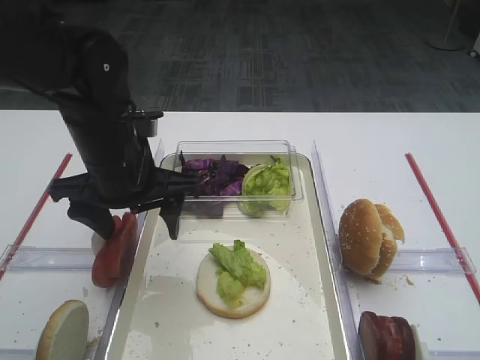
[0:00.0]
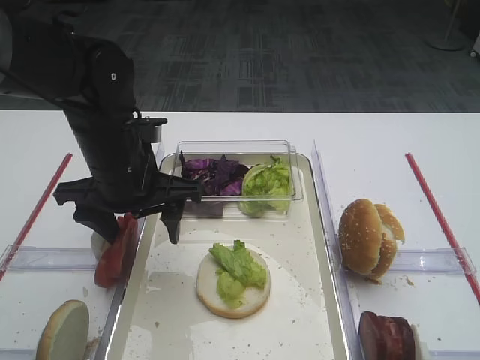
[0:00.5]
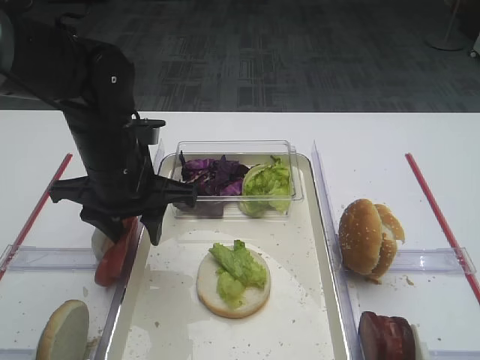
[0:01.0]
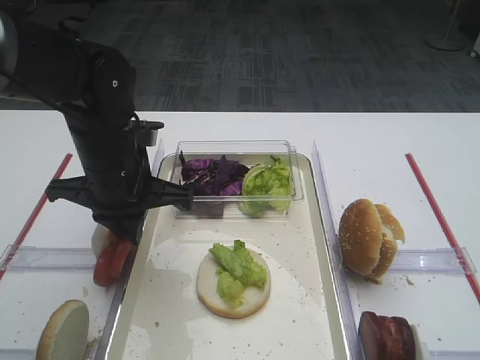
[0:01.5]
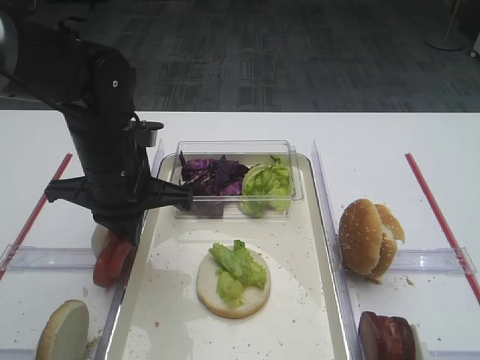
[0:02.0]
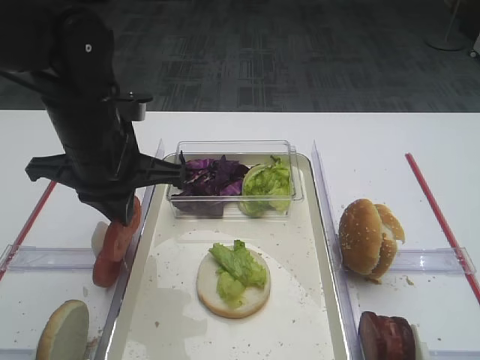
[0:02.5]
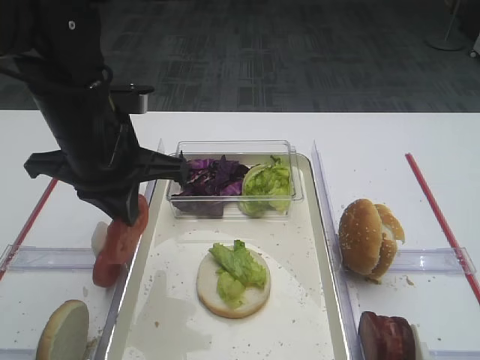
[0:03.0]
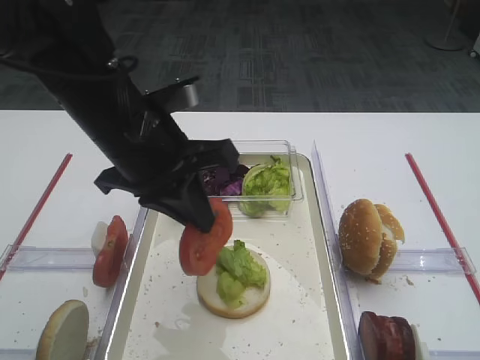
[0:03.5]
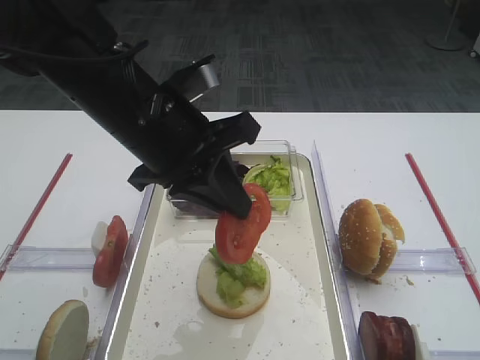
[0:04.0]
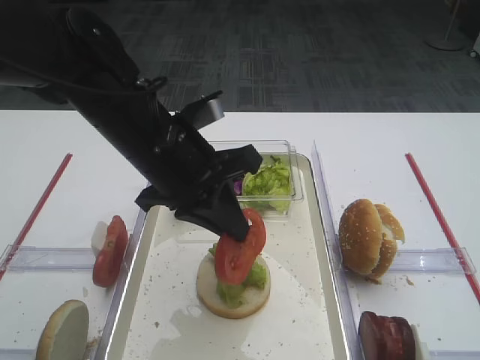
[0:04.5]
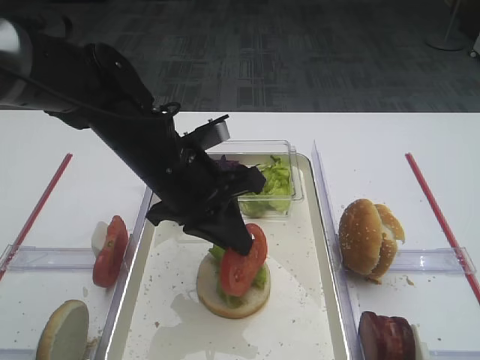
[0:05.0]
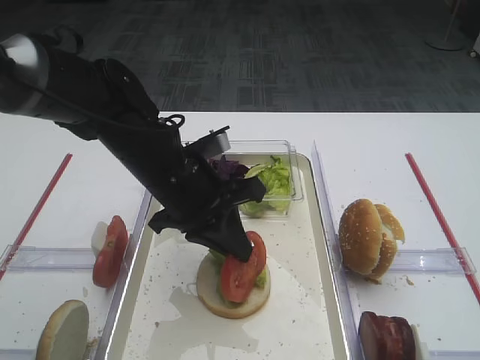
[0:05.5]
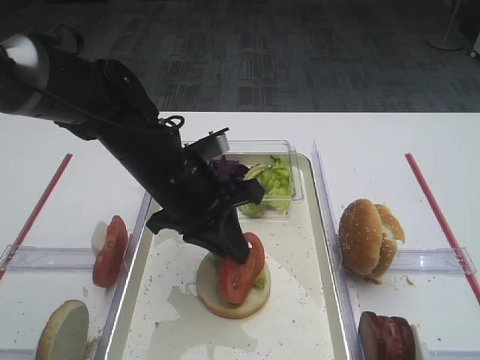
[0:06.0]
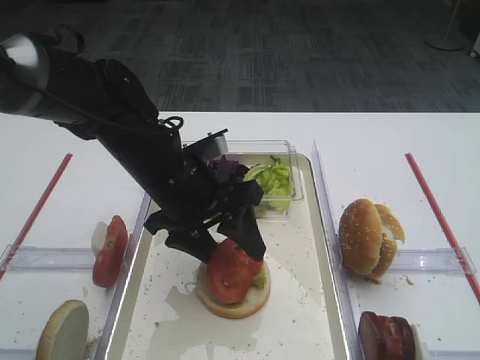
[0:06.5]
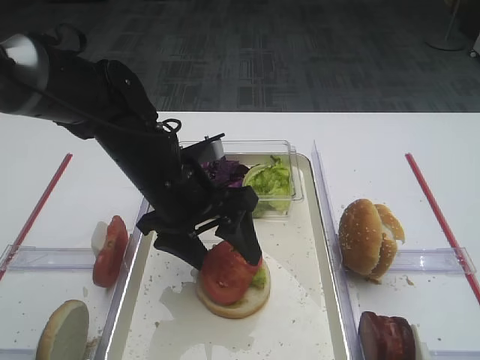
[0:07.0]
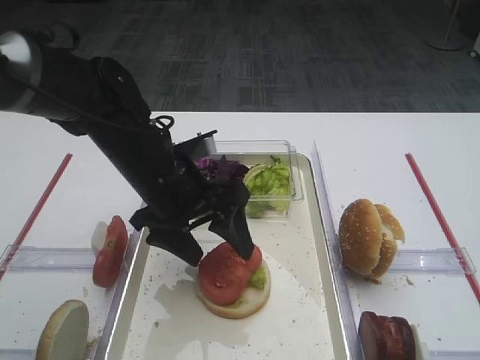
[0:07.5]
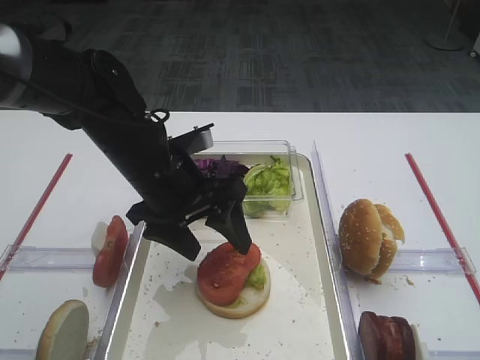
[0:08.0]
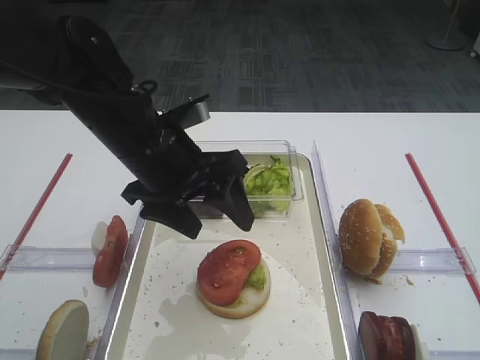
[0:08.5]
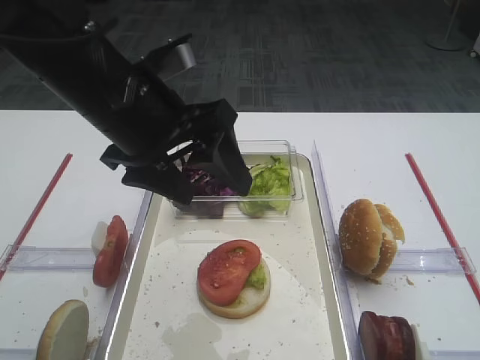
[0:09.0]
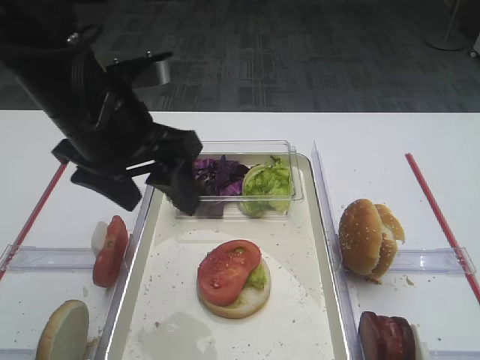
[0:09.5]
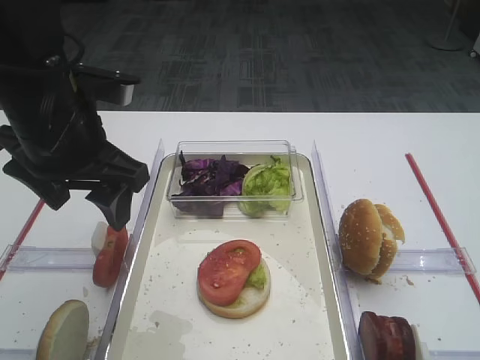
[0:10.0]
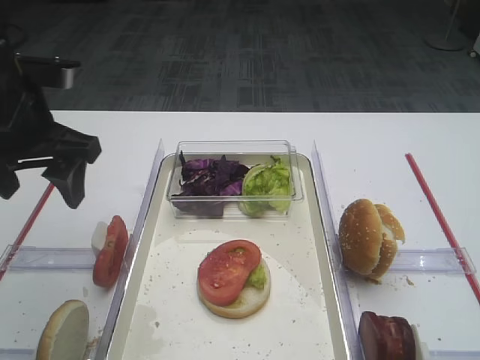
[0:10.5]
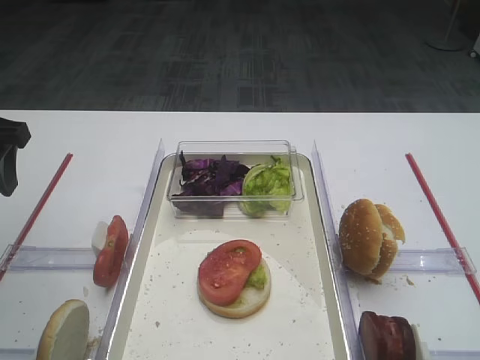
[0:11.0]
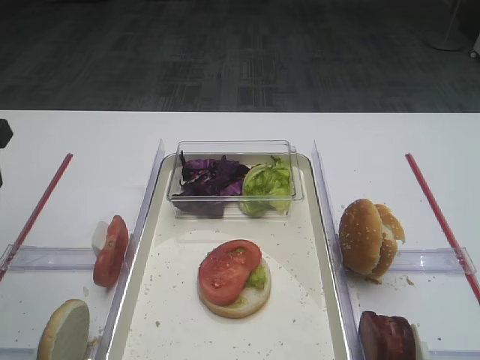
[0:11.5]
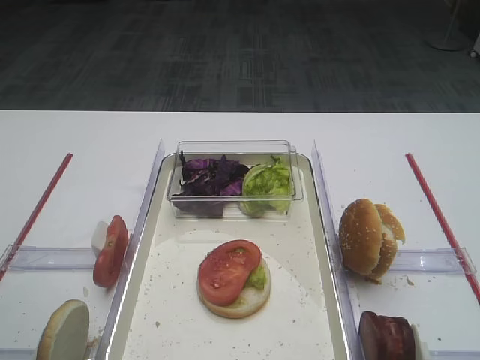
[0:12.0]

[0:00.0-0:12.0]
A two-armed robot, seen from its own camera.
Step, 0:00.0 to 0:02.5: Pick up the tomato slice with the left gripper.
Step, 0:03.0 to 0:08.0: Place the tomato slice on the lettuce leaf with the left gripper.
0:00.0 to 0:02.0: The left gripper closes its fingers.
0:02.0 to 0:04.0: The left gripper moves upward, roughly 10 cm.
0:04.0 to 0:06.0: The left gripper heads downward, covering about 10 cm.
0:06.0 to 0:08.0: The left gripper opens its fingers.
0:08.0 to 0:10.0: The left gripper travels upward and to the left by some 10 cm.
0:10.0 to 0:12.0: The left gripper goes approximately 15 cm to the left and backward.

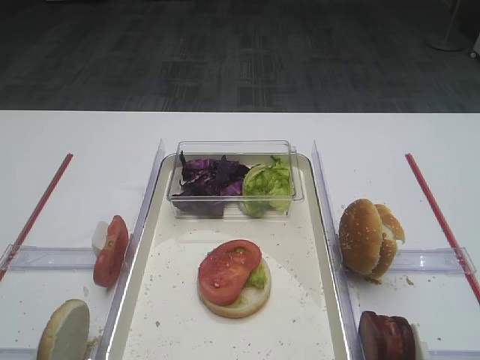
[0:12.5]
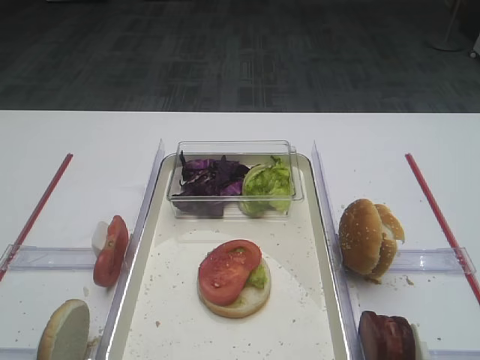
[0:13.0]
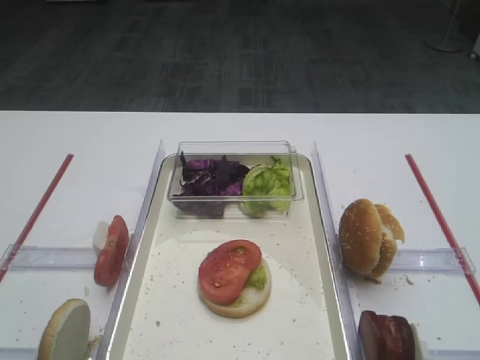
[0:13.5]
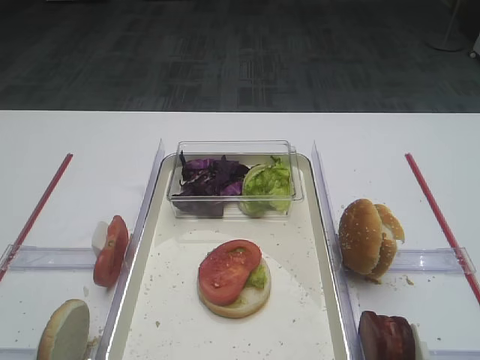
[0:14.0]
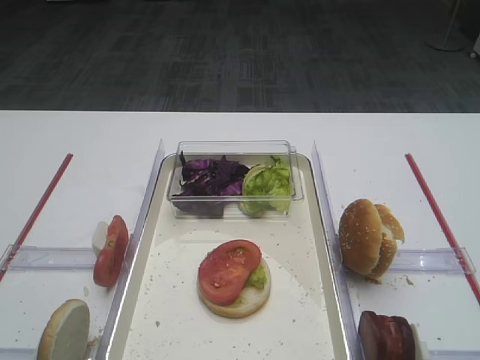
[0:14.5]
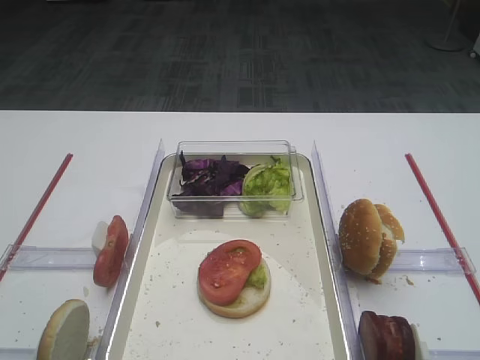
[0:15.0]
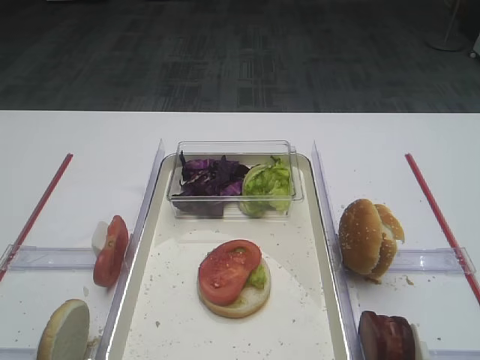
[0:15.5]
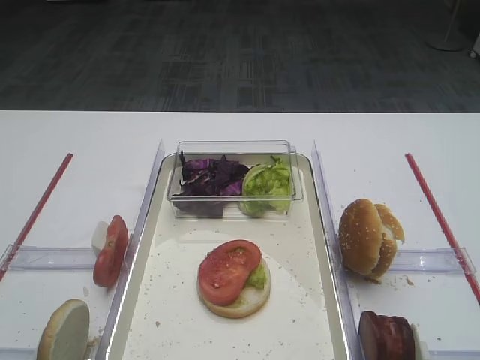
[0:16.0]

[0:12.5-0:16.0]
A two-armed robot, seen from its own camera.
0:14.5 to 0:16.0: Both grippers stay about where they are.

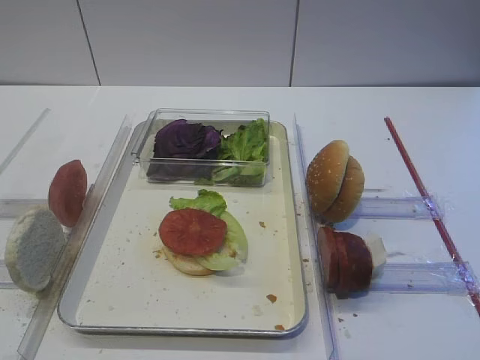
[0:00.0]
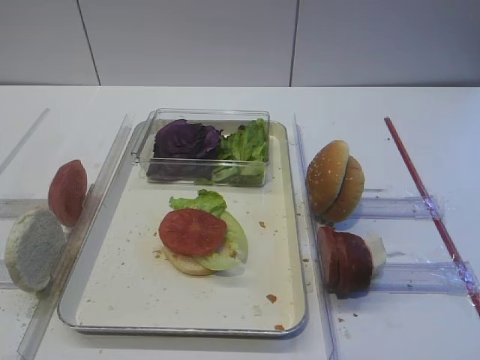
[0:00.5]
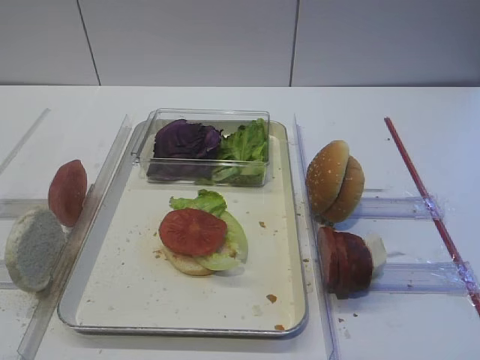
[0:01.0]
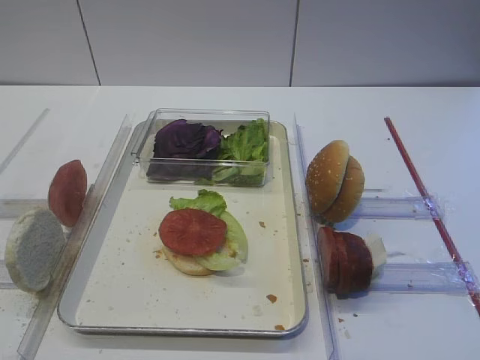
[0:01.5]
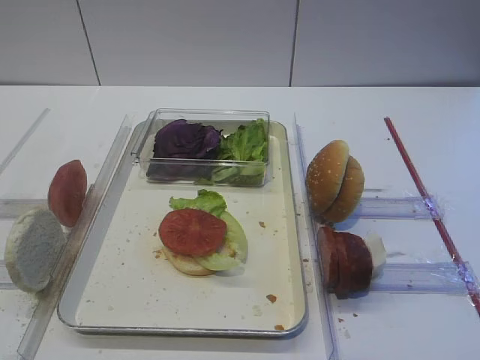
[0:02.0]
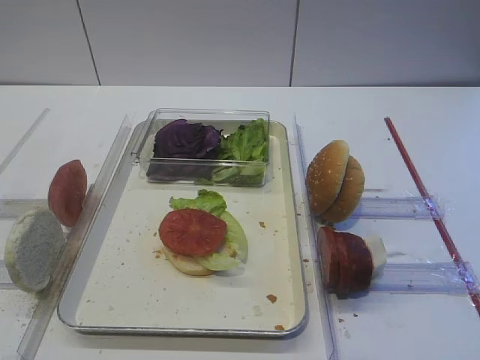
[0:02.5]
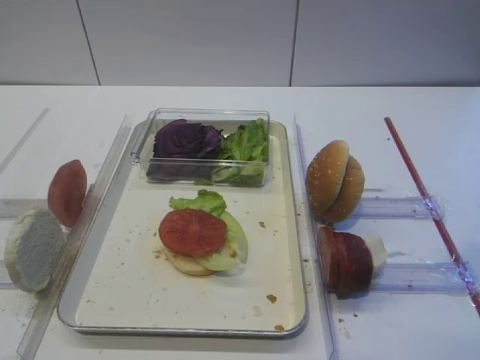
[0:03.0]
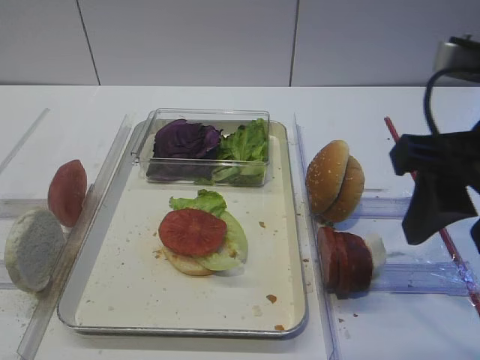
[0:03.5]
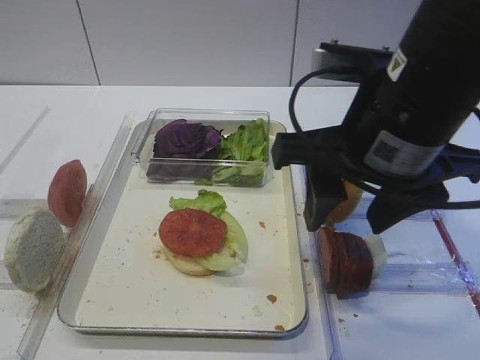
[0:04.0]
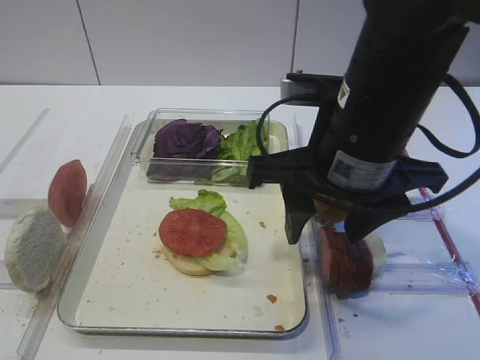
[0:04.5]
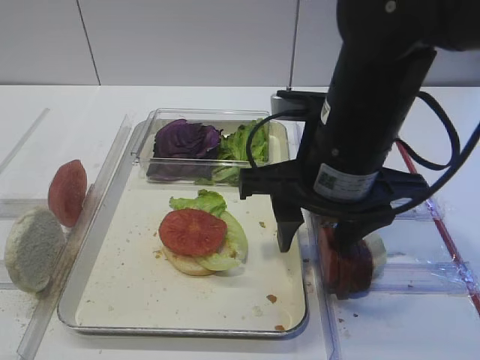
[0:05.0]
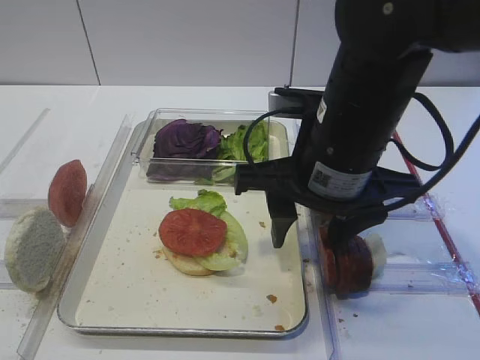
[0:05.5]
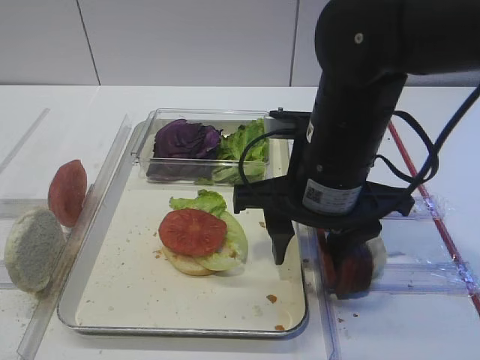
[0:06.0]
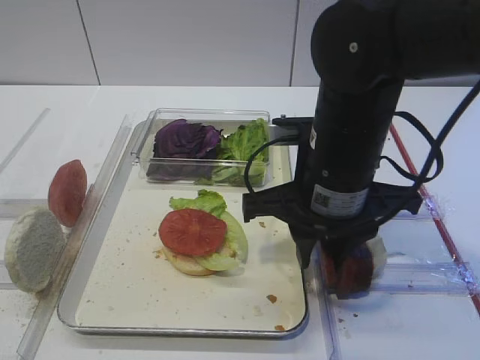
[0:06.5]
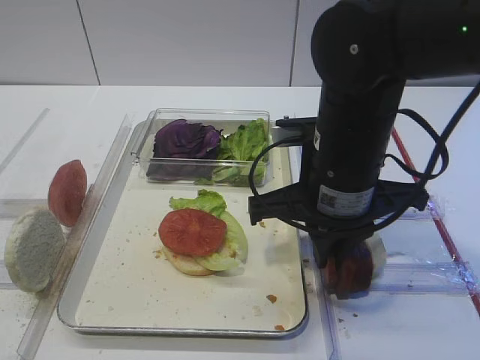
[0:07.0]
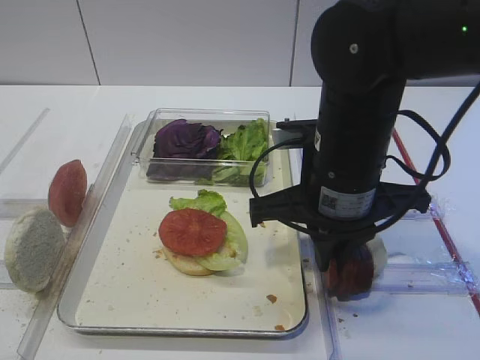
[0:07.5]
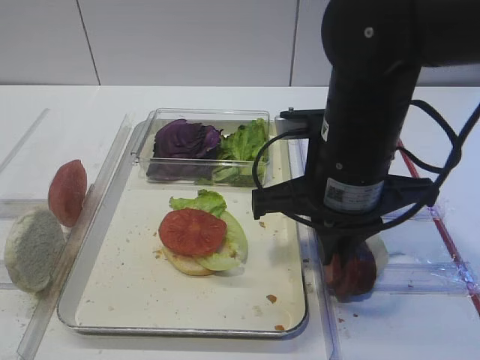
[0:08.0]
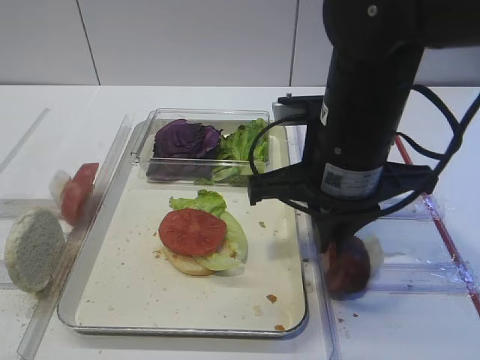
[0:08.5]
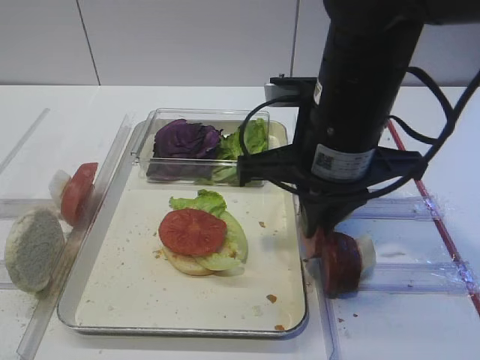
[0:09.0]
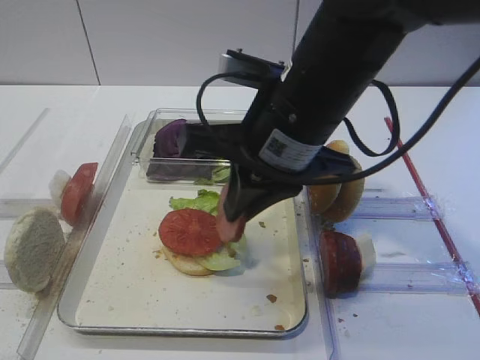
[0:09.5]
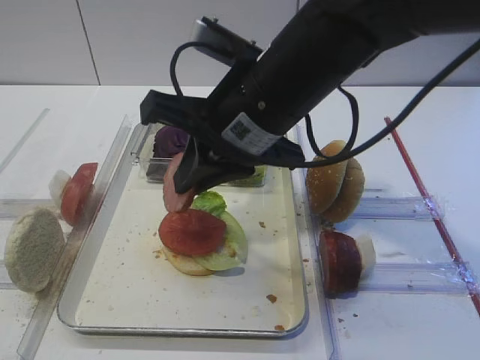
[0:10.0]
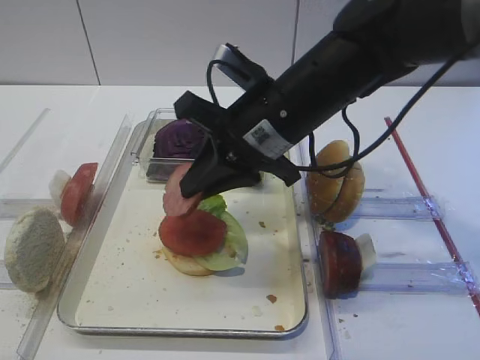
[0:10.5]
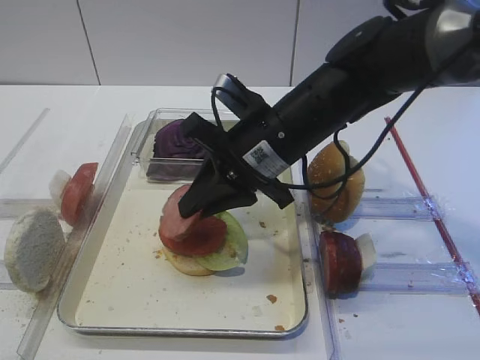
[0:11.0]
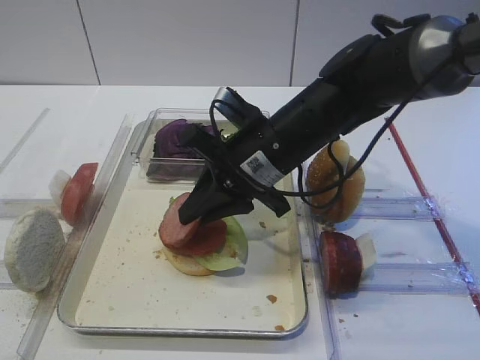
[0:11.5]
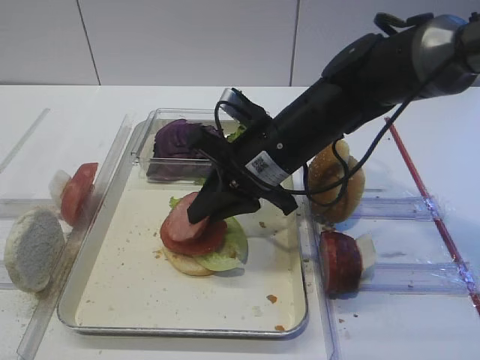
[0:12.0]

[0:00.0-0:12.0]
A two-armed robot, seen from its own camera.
Step, 0:00.0 to 0:08.5: Pick up the cutlet with the right gripper.
0:02.0 to 0:04.0: The right gripper goes some 25 cm forward and to the left.
0:04.0 to 0:06.0: The right gripper heads downward, covering some 5 cm.
0:06.0 to 0:08.0: The right gripper closes up.
0:08.0 to 0:10.0: The right gripper goes about 5 cm to the left.
0:10.0 to 0:12.0: The right gripper moves downward and forward, some 10 cm.
